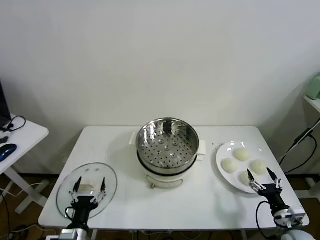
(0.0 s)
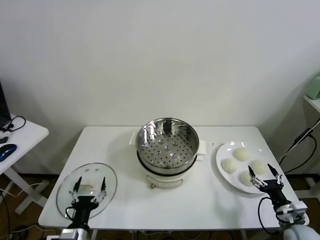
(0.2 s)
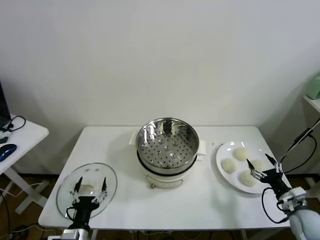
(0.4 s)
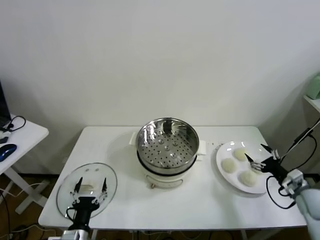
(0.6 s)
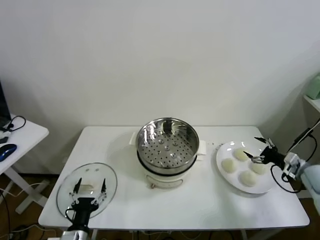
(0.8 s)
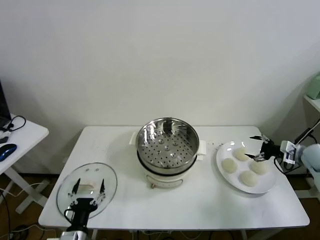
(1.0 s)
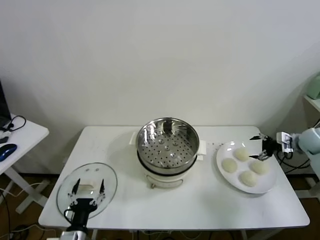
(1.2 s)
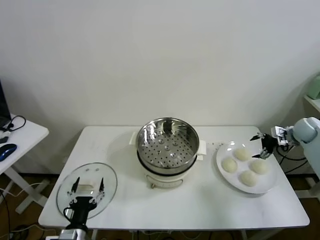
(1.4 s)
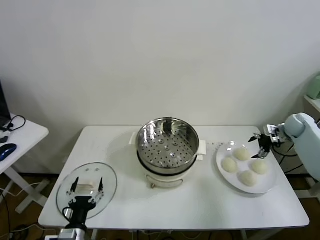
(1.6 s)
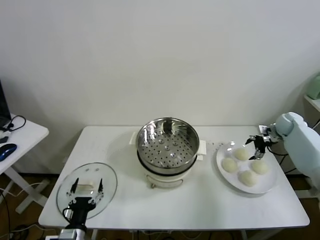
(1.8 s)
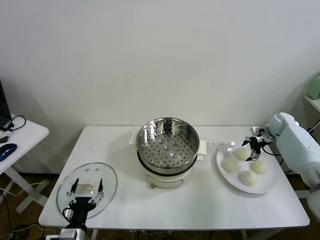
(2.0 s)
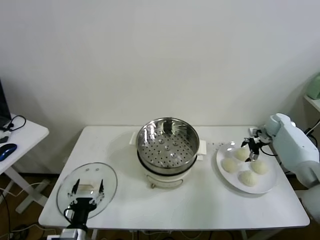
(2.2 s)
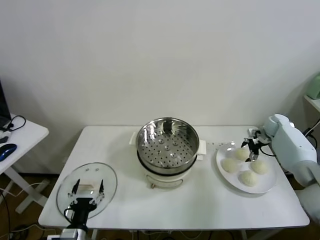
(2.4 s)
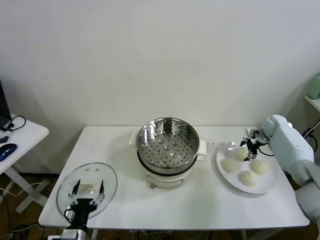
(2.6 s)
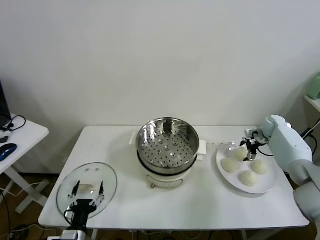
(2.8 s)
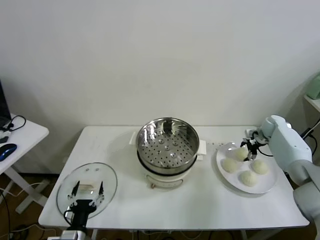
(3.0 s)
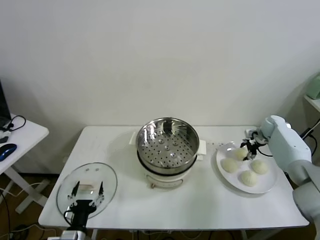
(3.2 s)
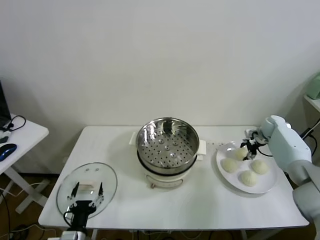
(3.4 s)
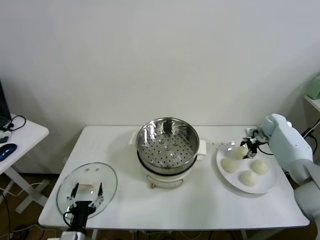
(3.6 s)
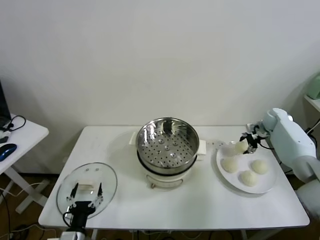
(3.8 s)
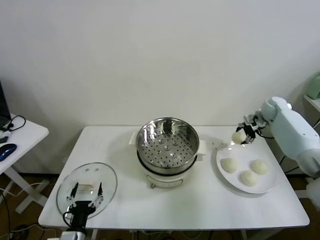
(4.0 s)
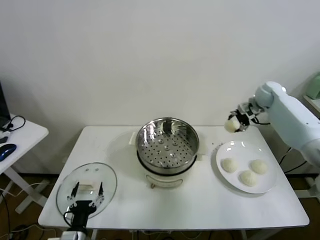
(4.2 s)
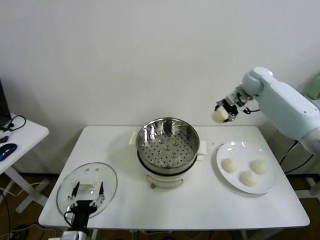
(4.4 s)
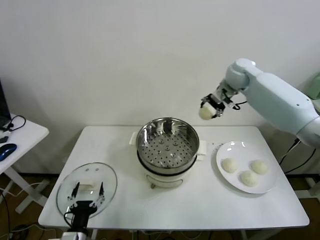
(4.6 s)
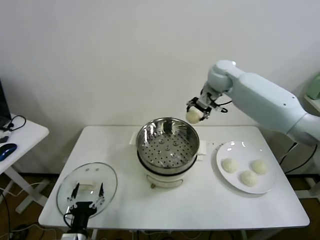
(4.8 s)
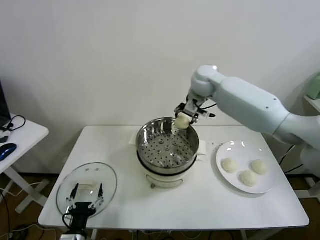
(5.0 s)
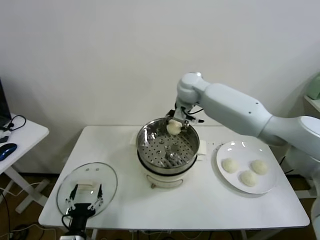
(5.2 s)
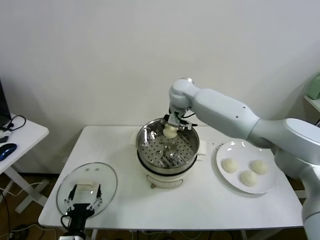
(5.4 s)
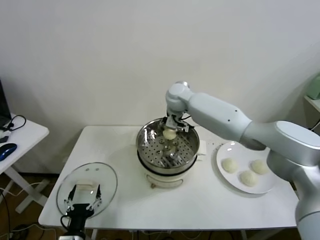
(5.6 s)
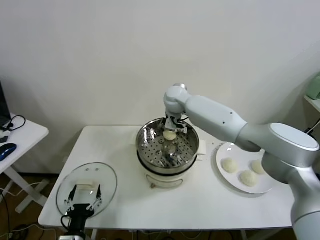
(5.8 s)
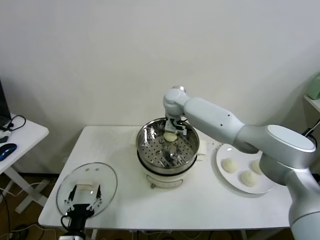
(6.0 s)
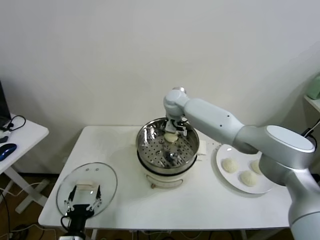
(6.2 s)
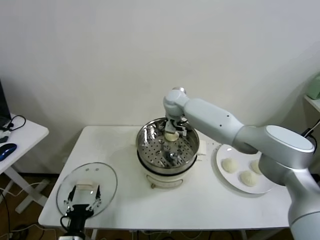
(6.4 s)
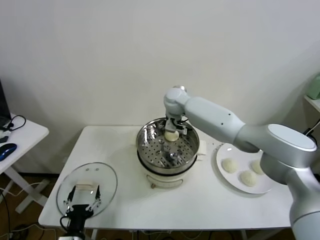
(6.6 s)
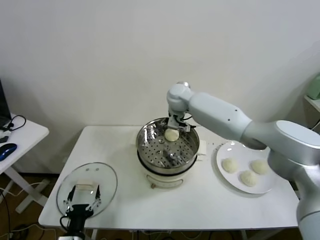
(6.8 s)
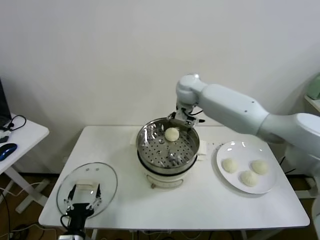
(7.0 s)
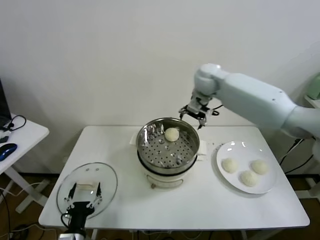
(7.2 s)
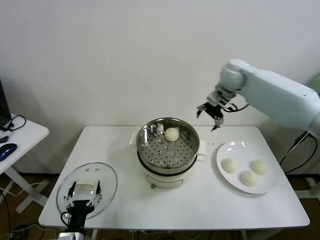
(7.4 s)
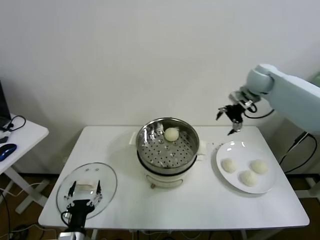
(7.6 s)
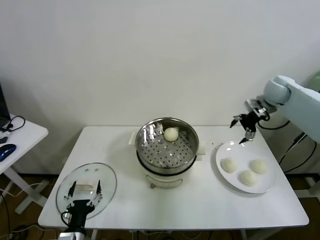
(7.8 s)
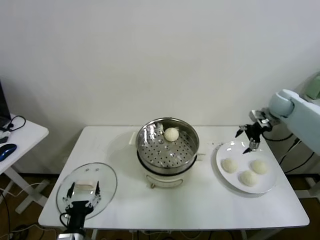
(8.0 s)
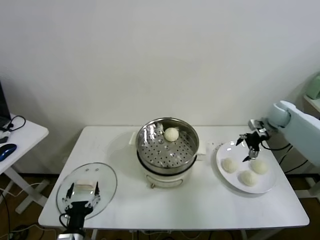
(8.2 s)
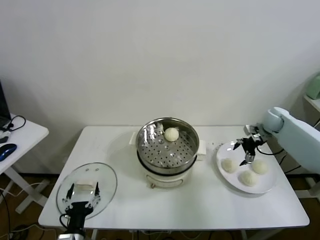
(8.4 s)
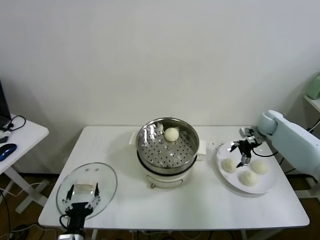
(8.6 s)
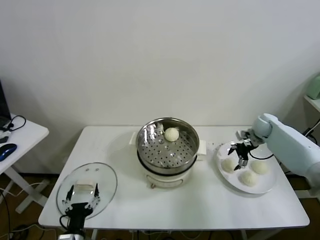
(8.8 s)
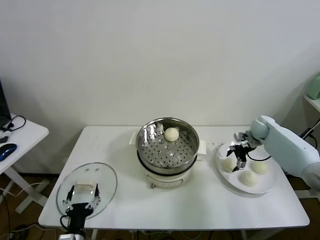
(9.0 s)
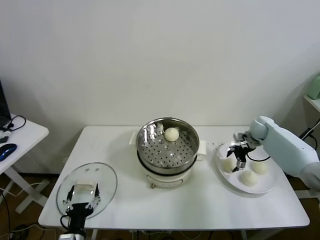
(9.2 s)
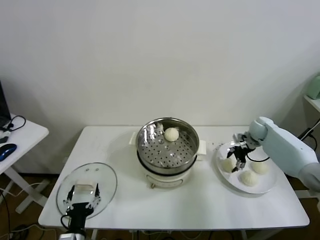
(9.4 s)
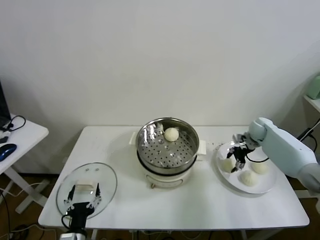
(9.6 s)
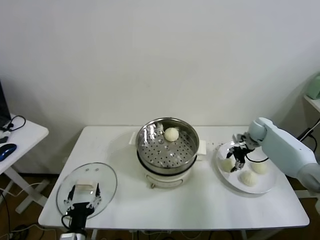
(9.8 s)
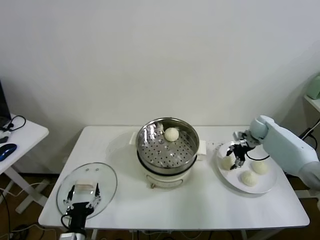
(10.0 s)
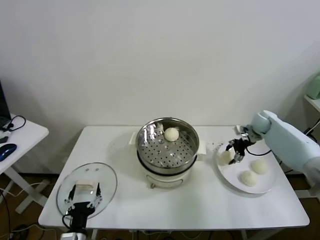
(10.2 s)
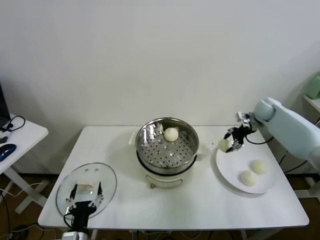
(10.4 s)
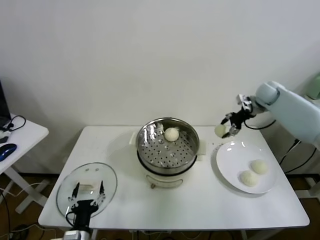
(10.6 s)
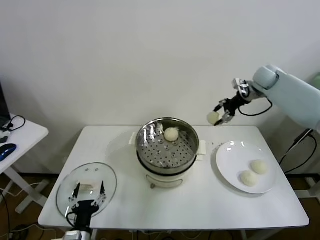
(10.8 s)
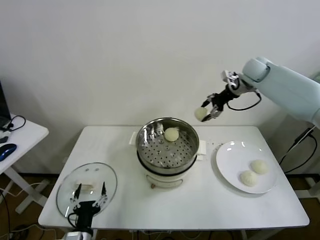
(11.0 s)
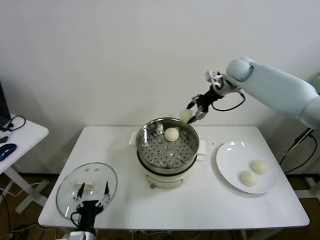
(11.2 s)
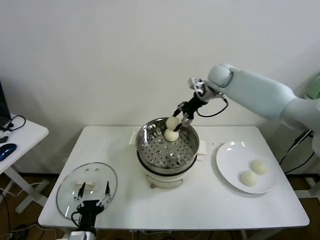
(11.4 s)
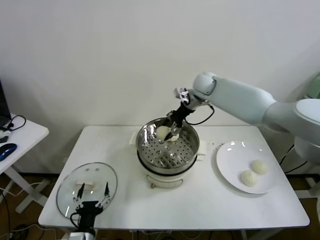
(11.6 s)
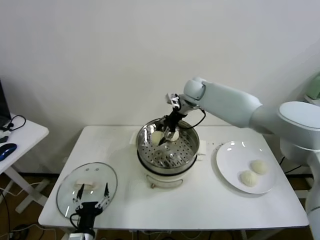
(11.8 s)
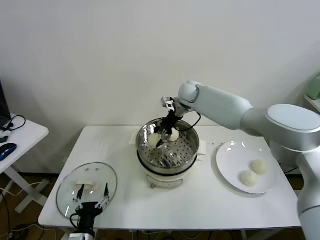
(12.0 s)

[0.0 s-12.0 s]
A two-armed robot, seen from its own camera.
Task of the whole recording: take steamed baozi put them in steamer.
Step, 0.0 to 3.2 s: Grasp the baozi in the plate with right gripper.
Step, 3.4 to 6.4 s: Place the baozi on the steamer with right gripper.
Step, 6.6 to 9.6 s: Grasp the baozi in the plate with right gripper.
1.6 to 3.0 s: The right gripper moves approximately 5 cm, and closes up.
3.0 to 4.4 s: The right gripper travels upward and to the left by approximately 30 cm.
4.4 to 6.0 s: The right gripper goes some 25 cm to the left.
6.0 to 7.6 s: The right gripper heads to the right, covering about 30 cm, and opens.
7.6 to 9.0 s: The right gripper heads downward, covering roughly 20 cm.
9.0 to 10.4 s: The right gripper is displaced upward by some 10 cm, and closes.
10.4 to 12.0 s: The right gripper travels to the left by some 30 cm.

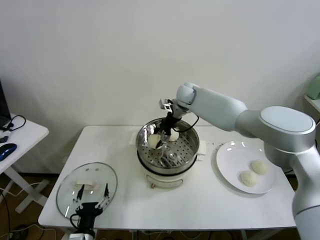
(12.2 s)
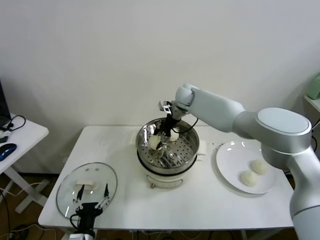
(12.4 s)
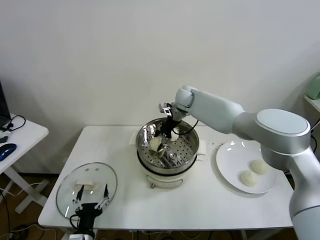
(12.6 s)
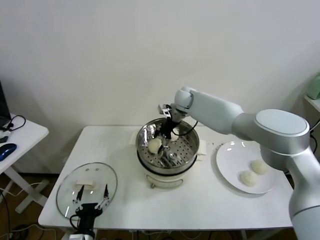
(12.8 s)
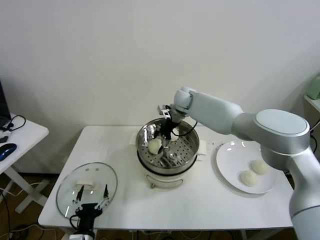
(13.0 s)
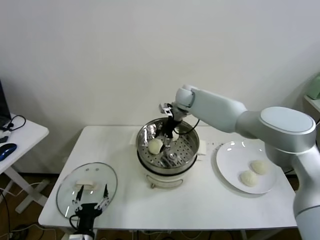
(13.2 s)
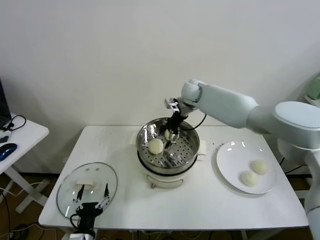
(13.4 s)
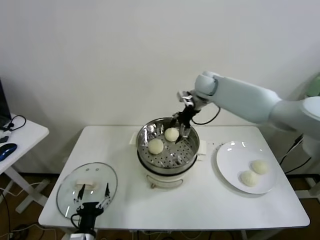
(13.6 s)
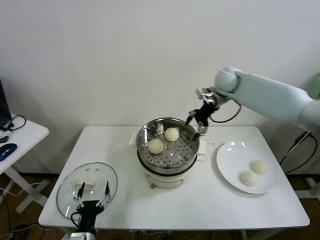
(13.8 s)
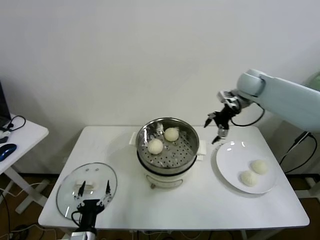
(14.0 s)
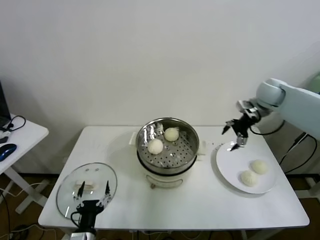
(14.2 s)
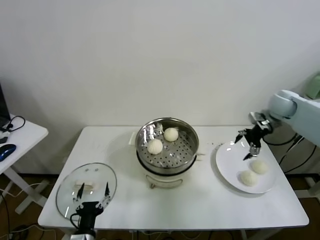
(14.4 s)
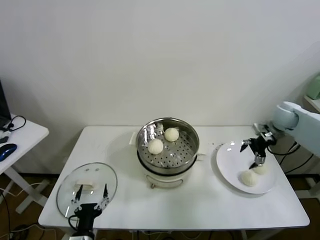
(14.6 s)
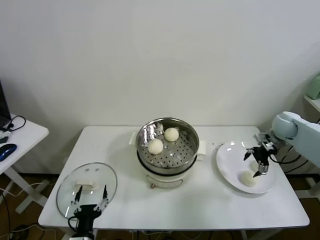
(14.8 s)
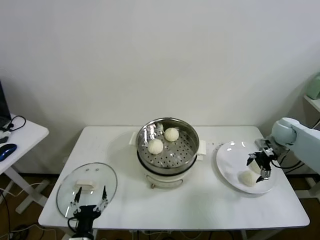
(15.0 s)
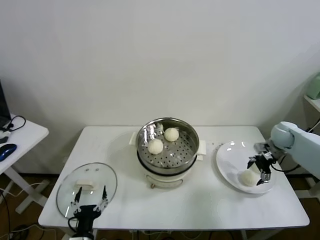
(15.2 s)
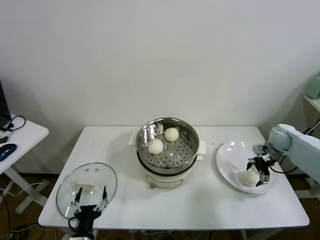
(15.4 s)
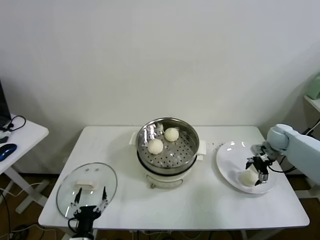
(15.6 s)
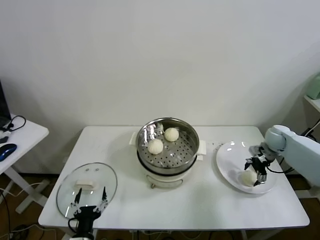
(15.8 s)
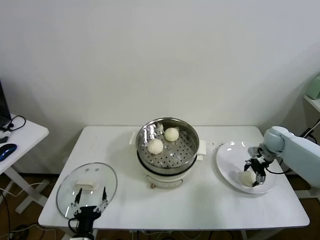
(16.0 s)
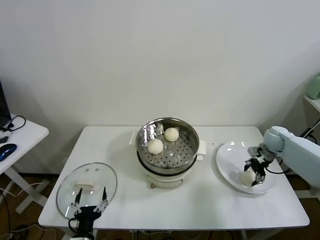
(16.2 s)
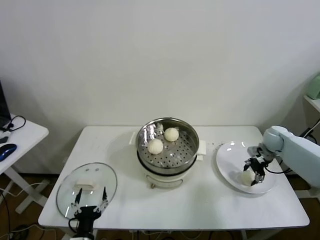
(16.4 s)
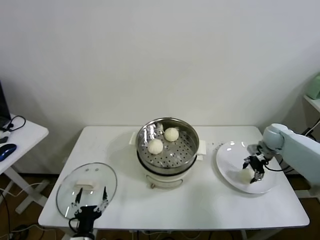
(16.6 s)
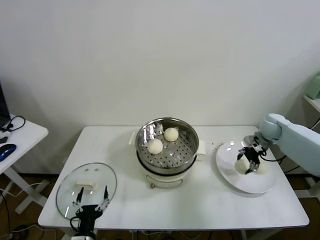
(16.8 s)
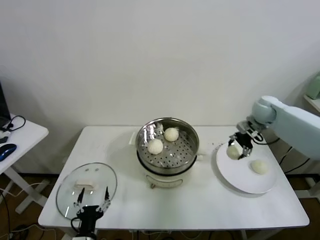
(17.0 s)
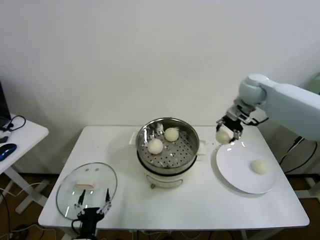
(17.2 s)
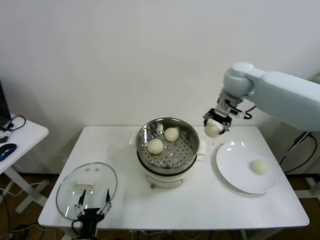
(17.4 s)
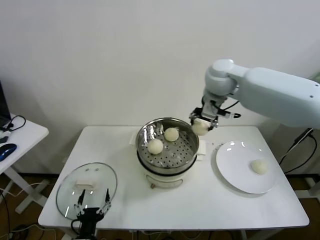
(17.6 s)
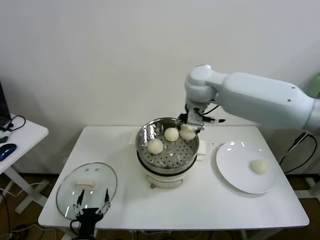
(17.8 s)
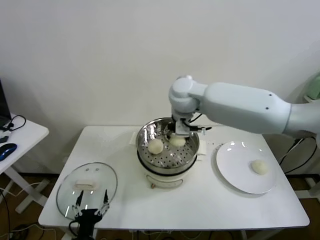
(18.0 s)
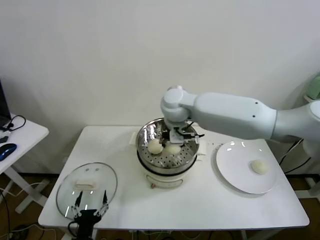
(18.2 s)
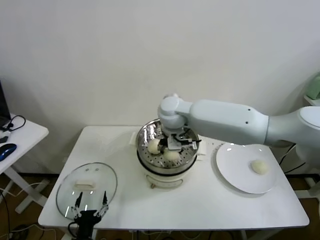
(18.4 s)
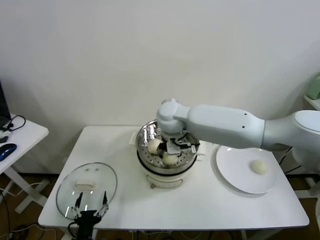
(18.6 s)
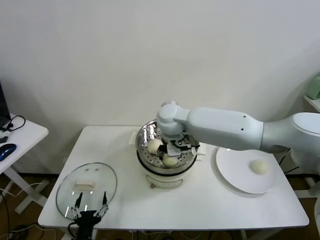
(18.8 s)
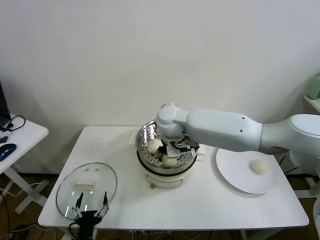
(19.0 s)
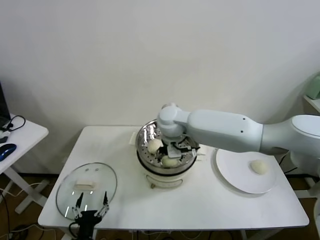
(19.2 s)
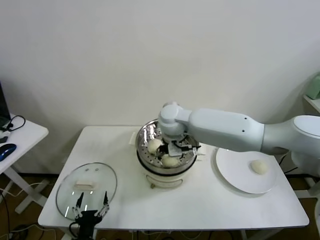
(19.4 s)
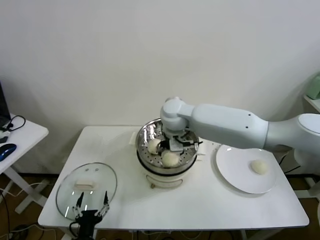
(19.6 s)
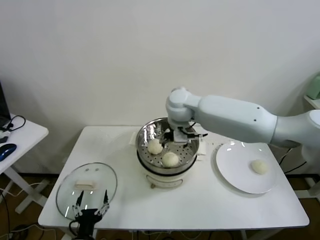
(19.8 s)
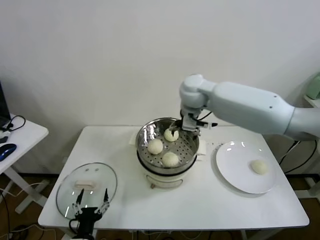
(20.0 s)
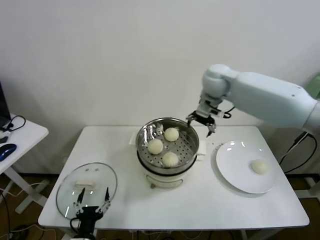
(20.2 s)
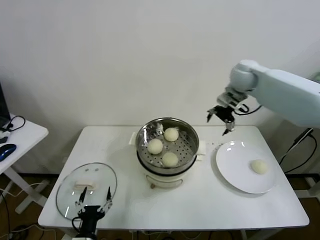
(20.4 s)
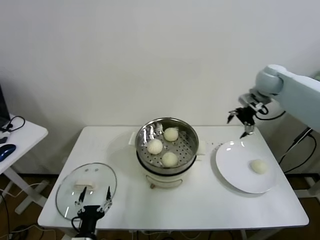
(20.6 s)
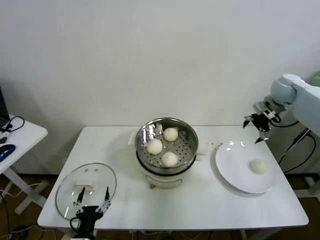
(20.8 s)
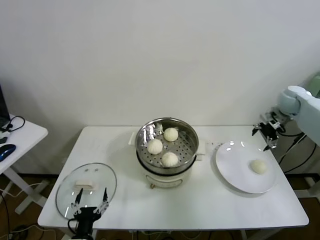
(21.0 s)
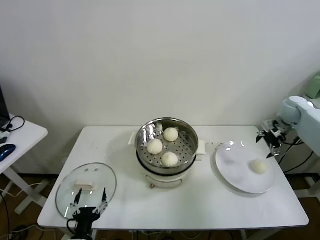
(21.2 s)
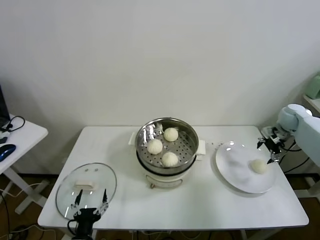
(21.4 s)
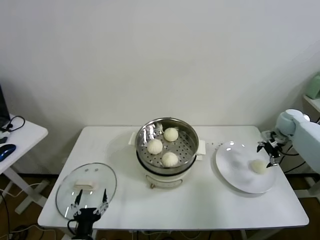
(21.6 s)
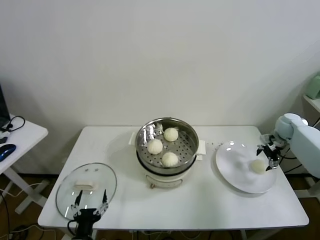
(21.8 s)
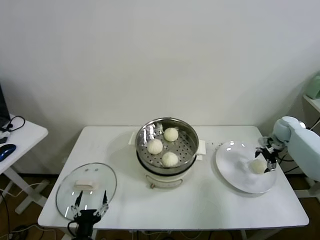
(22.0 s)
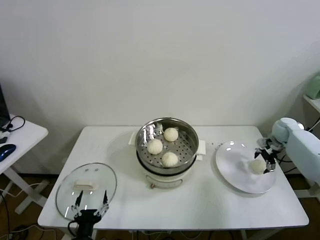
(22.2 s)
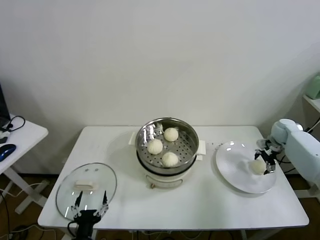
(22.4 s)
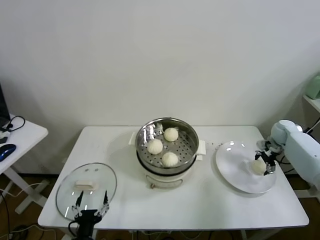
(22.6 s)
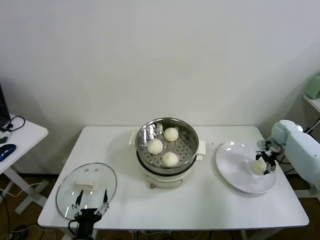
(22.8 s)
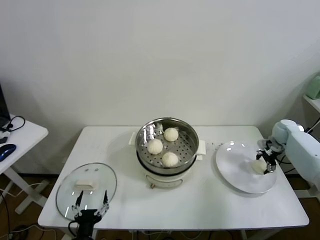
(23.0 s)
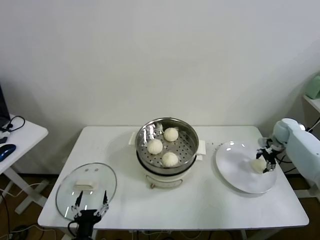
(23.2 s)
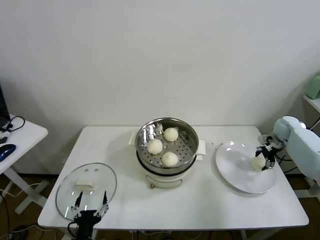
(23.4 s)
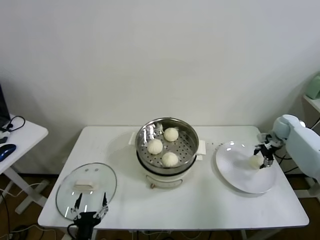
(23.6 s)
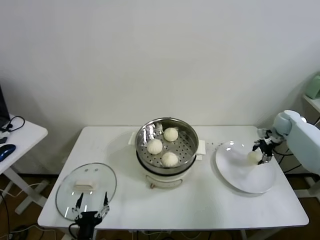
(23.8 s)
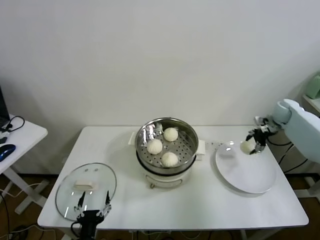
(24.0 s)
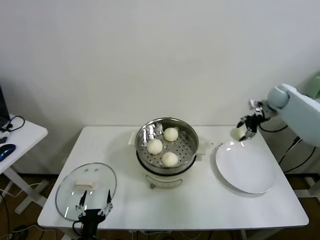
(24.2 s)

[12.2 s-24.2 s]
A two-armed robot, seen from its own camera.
Task of the whole recording: take steamed baozi put them in steamer.
Step, 13.4 to 16.0 s: Grasp the baozi in the plate with right gripper.
Step, 16.4 to 19.0 s: Place the baozi on the steamer with right gripper.
Step, 19.4 to 23.0 s: Grasp the baozi in the plate with right gripper.
12.2 to 13.8 s: The right gripper moves to the right and upward, some 20 cm, and opens up.
13.8 to 15.2 s: The right gripper travels to the right, downward and backward by about 30 cm.
15.2 to 16.6 s: The right gripper closes.
16.6 to 18.2 s: The right gripper shifts roughly 40 cm to the left and upward.
18.2 to 19.8 s: The right gripper opens.
19.8 to 21.2 s: The right gripper shifts roughly 40 cm to the right.
21.2 to 22.6 s: The right gripper travels downward by roughly 10 cm.
22.6 to 24.2 s: The right gripper goes some 15 cm upward, and closes its fingers.
